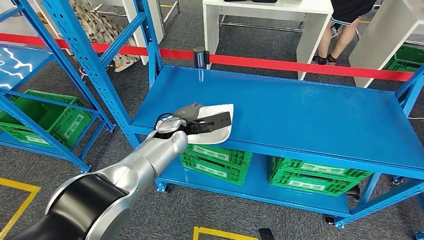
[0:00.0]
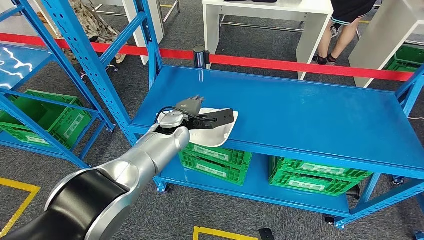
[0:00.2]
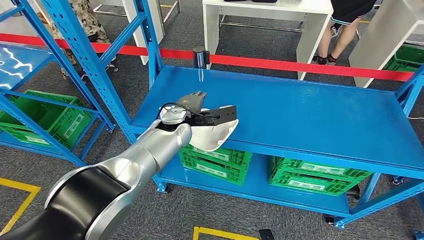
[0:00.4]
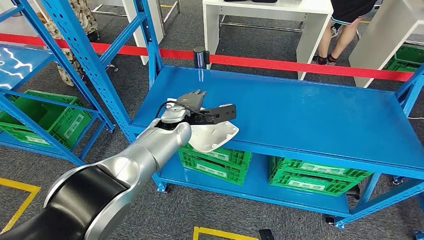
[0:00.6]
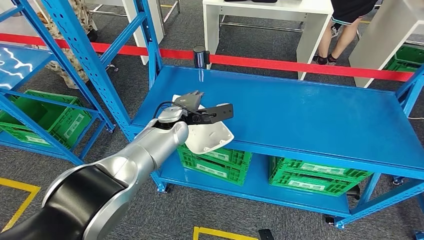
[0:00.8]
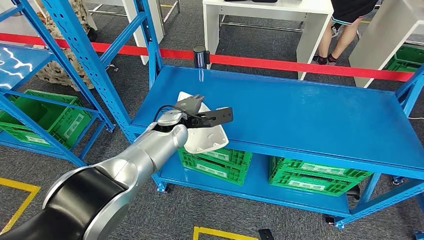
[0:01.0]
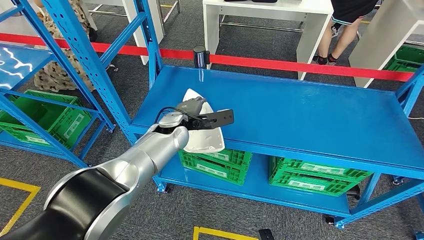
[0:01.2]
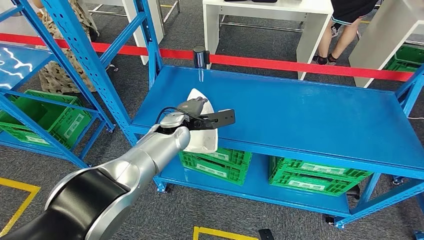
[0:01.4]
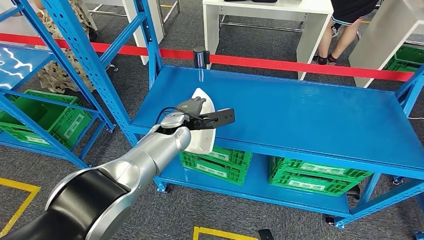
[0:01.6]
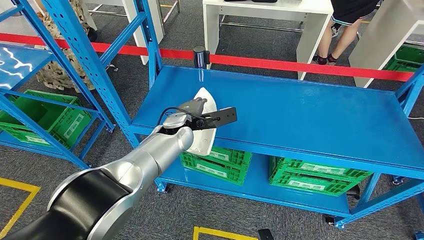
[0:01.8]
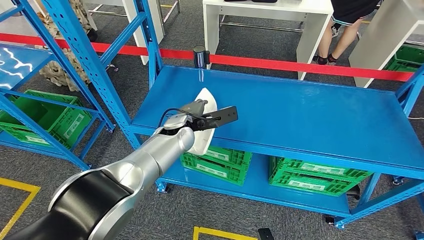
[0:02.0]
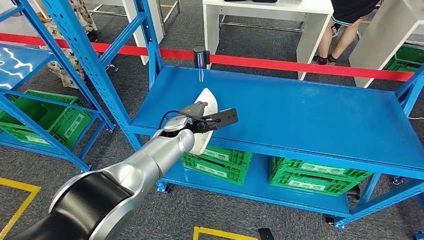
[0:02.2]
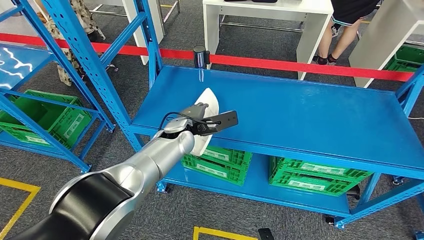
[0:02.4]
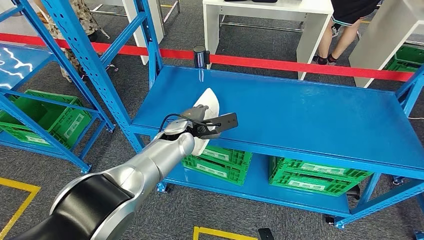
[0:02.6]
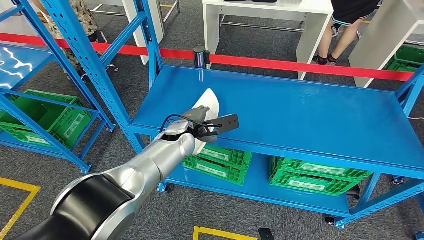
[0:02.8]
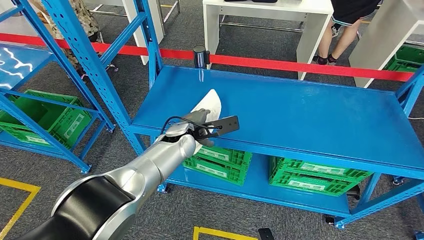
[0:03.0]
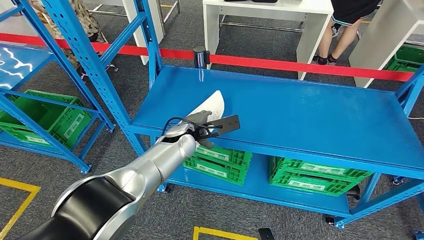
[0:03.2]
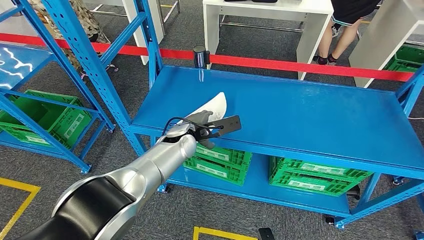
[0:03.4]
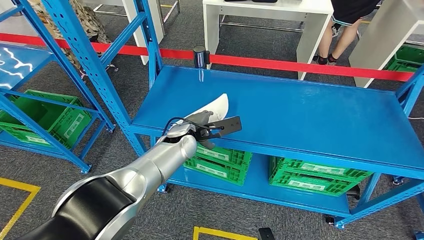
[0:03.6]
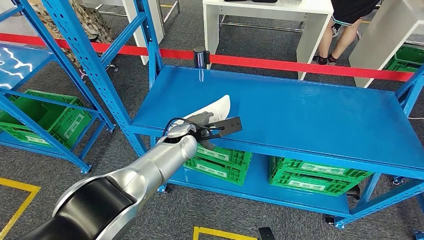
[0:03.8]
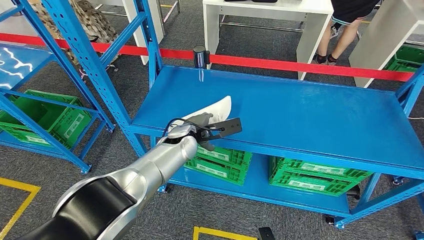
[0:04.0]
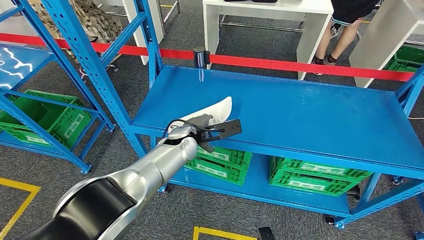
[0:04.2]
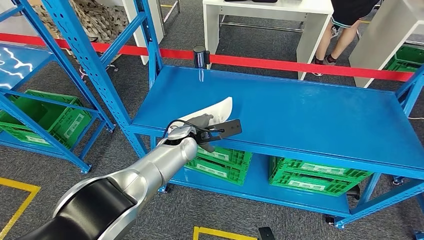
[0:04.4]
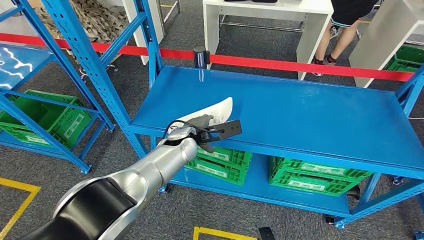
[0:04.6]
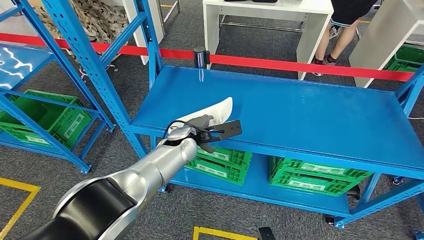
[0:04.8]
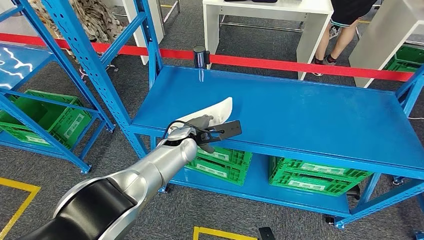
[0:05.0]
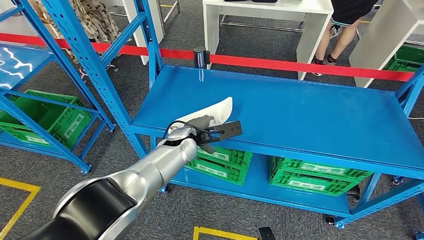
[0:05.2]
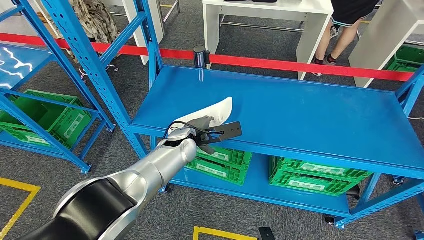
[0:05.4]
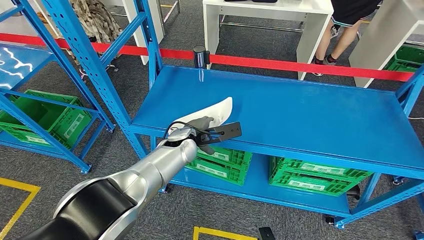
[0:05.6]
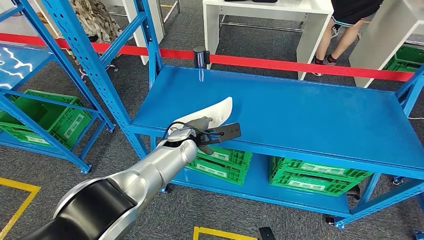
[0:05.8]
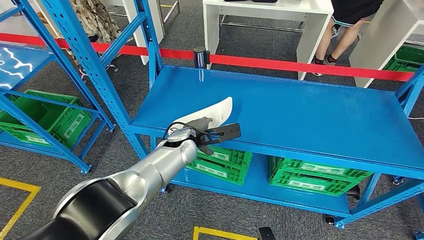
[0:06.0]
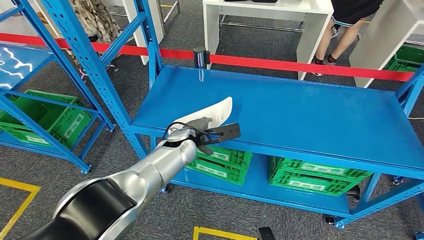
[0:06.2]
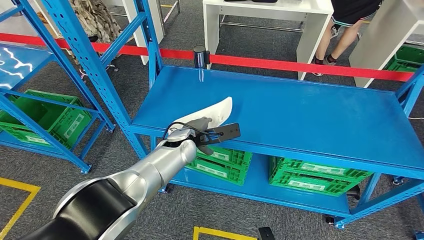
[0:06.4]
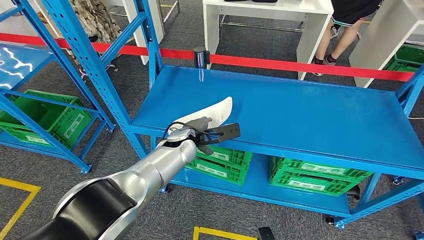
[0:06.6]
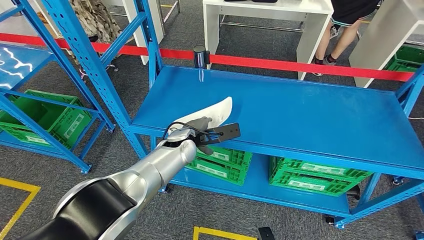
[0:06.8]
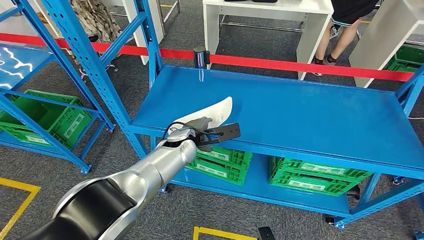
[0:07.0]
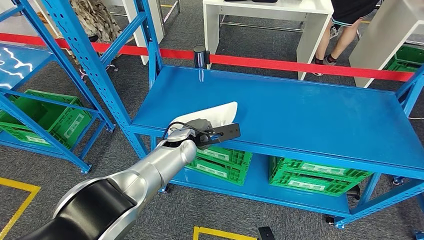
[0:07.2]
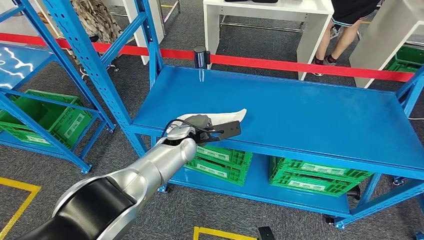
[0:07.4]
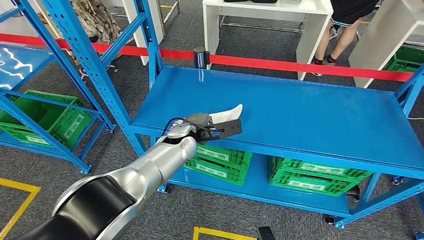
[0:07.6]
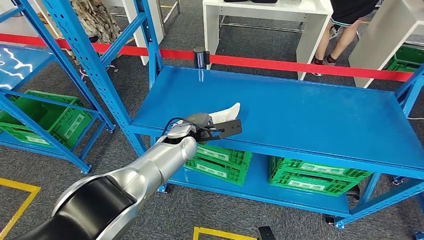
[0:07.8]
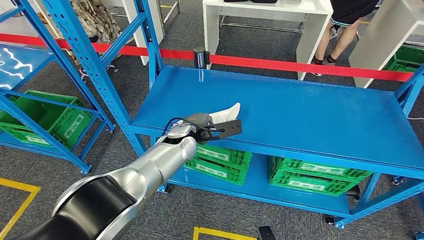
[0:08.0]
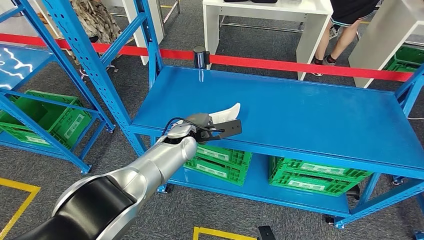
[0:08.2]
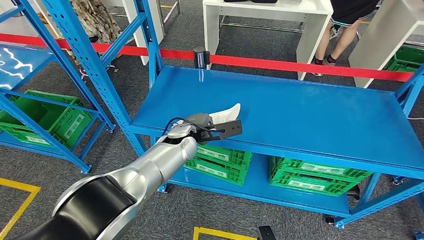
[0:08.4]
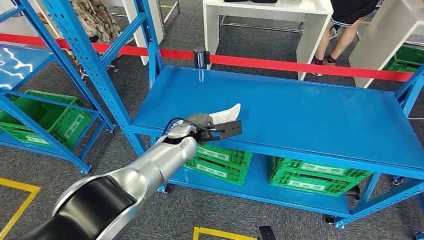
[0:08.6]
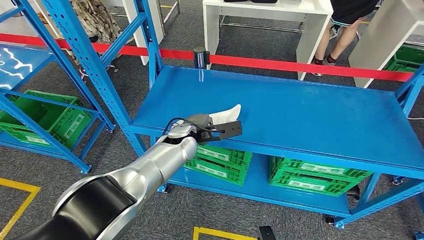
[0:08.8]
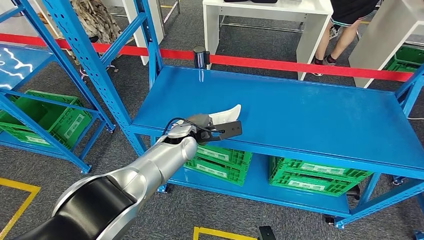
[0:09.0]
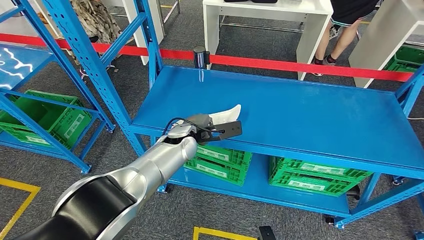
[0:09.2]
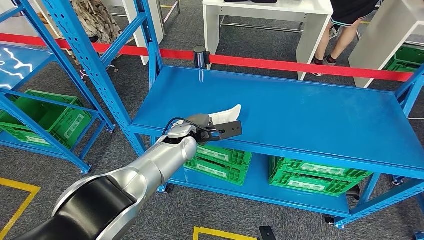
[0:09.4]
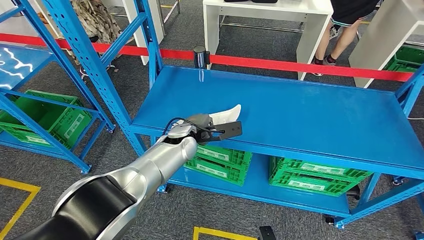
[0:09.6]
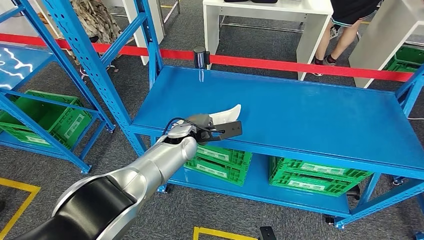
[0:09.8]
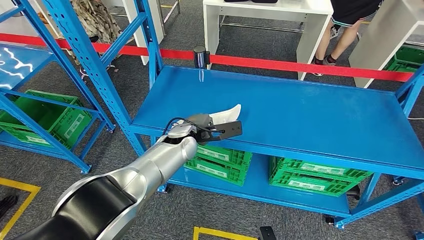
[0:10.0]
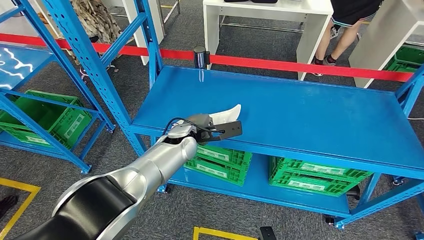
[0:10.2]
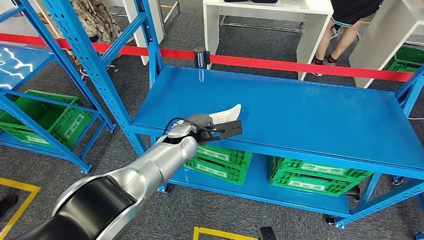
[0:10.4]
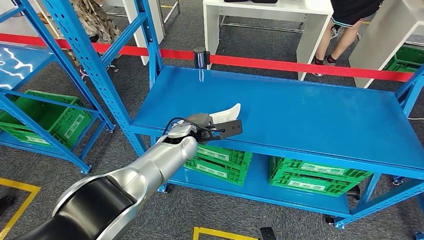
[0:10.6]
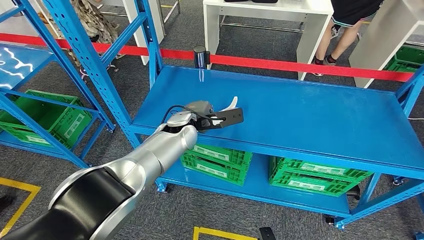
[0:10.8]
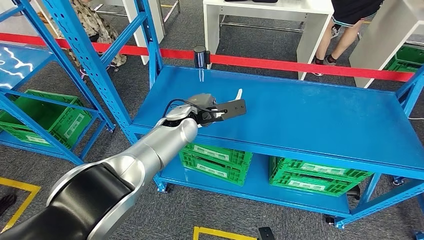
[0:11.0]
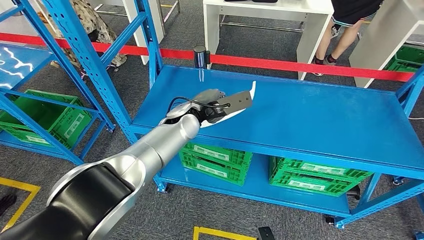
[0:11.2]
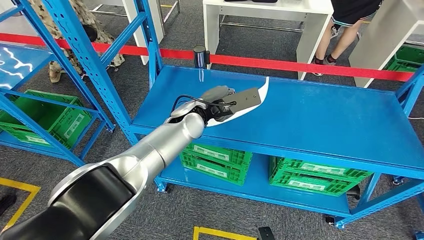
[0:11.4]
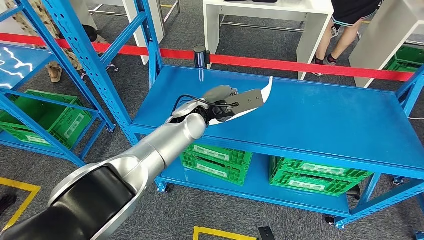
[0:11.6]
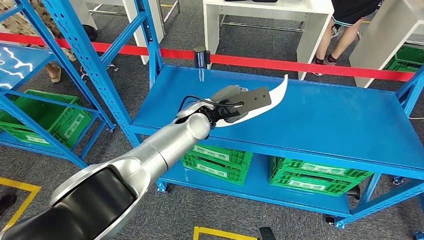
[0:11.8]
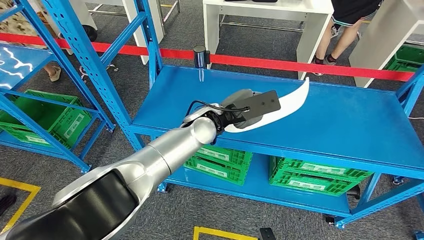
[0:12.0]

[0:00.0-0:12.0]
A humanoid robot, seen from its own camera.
0:00.0 to 0:03.0: The hands move only a little.
0:03.0 to 0:04.4: Both hands stay put.
0:04.4 to 0:10.4: The two hands keep their place.
0:10.4 to 0:12.0: The left hand shifts approximately 10 cm upward and to the right.

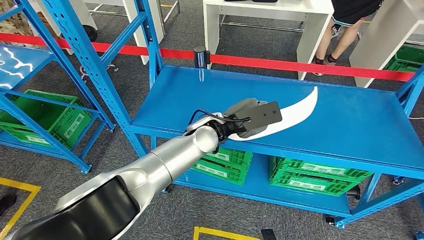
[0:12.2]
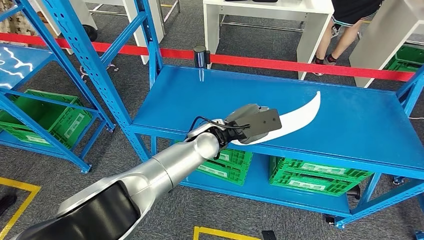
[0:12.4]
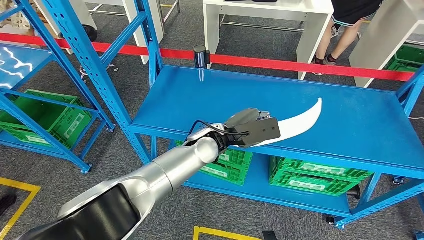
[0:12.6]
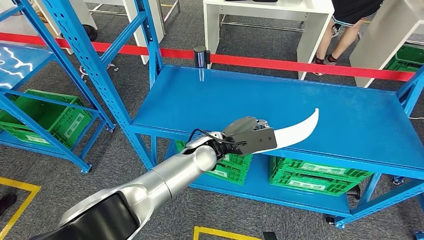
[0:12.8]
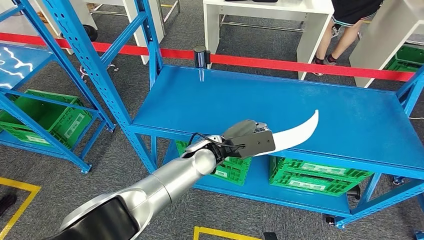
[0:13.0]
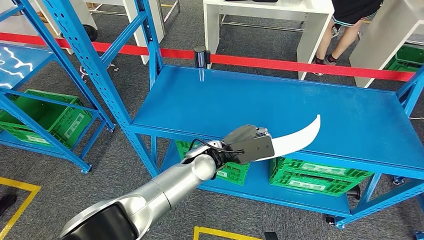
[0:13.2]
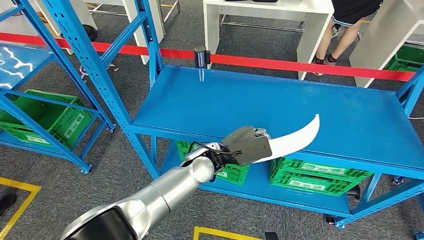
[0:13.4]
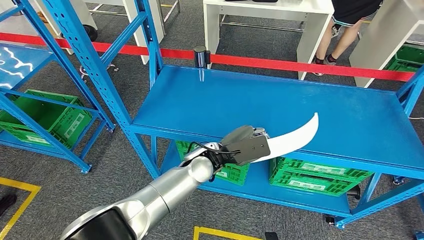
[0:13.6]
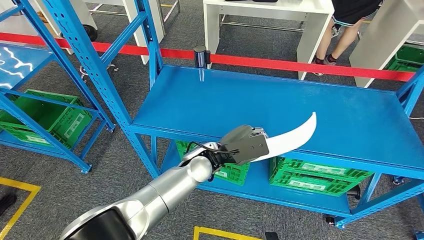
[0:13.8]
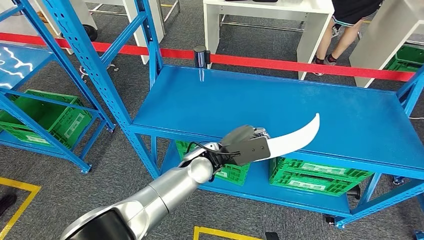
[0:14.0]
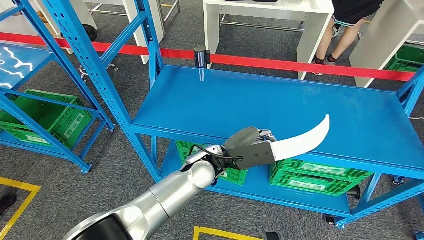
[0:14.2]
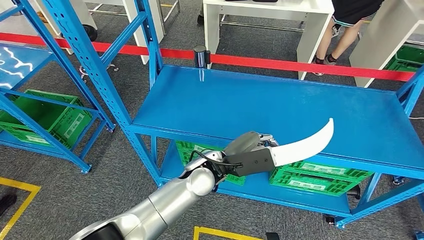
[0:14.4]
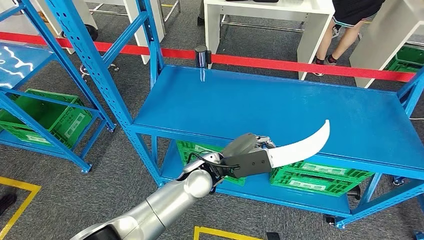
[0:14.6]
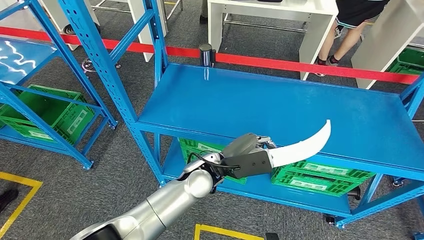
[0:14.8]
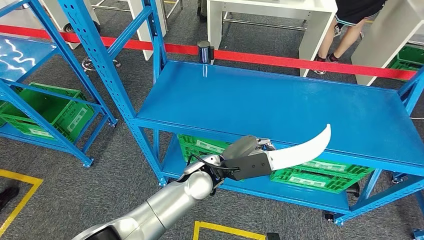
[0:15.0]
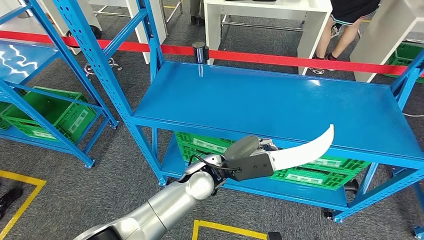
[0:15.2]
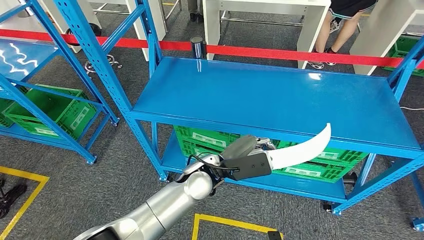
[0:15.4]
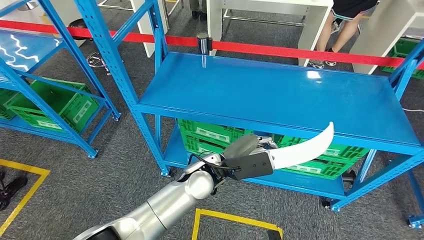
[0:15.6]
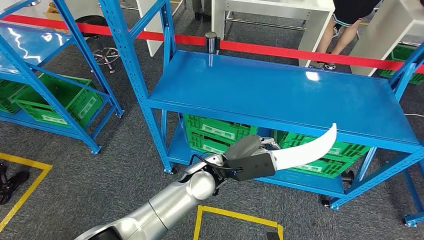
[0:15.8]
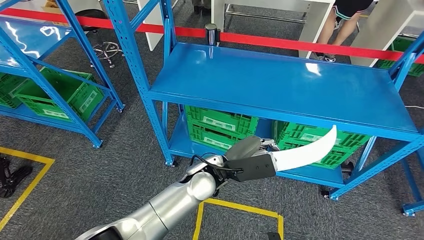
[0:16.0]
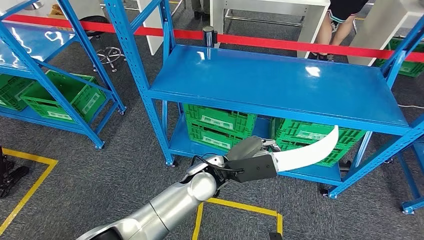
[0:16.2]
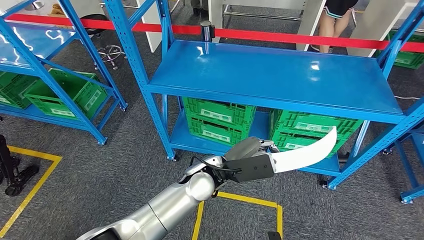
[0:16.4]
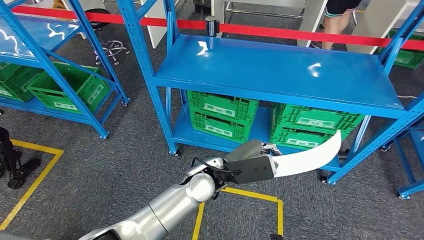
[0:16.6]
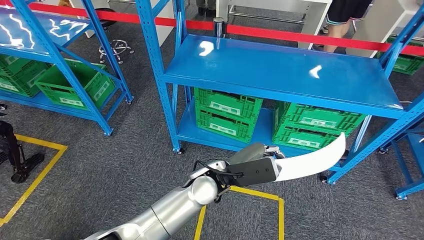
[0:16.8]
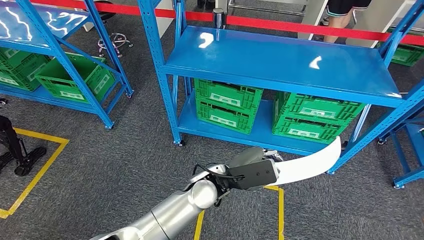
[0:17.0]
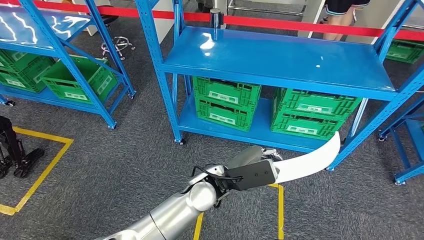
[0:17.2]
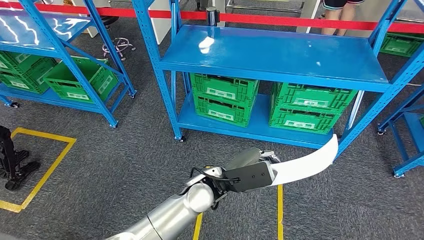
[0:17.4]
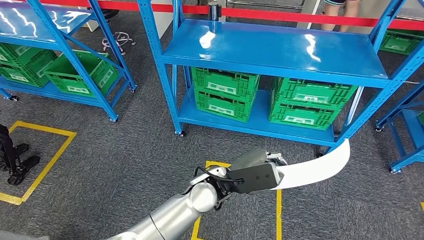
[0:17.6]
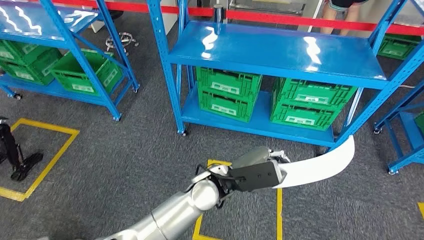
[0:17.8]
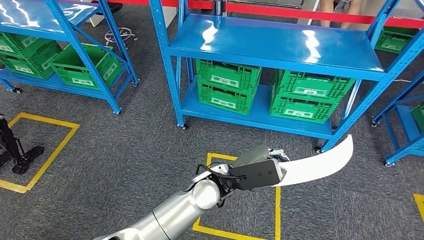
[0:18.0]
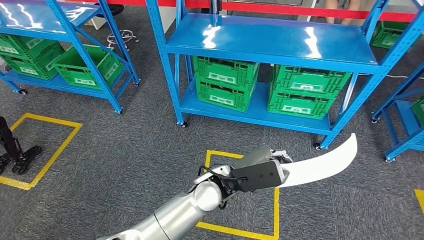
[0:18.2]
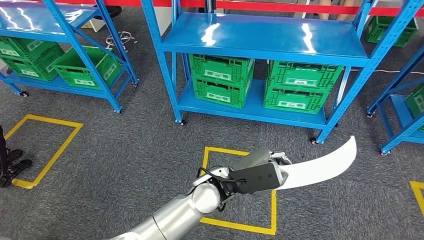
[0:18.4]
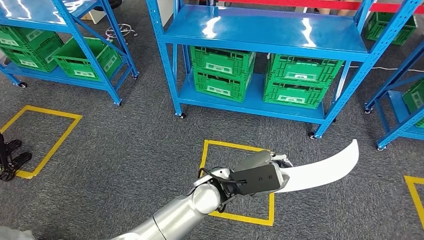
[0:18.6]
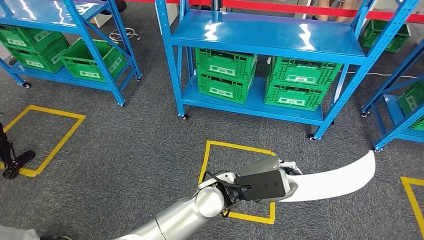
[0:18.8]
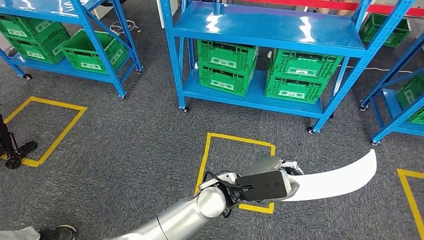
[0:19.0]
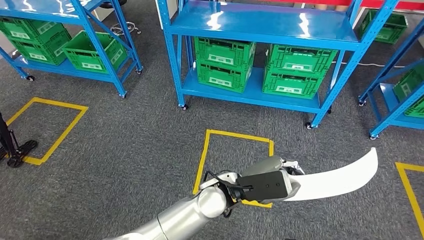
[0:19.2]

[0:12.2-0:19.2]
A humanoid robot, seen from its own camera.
0:12.2 to 0:13.6: The left hand moves downward, roughly 5 cm.
